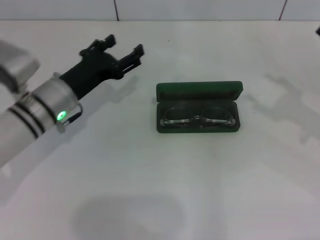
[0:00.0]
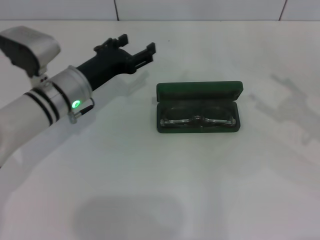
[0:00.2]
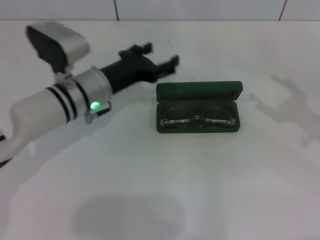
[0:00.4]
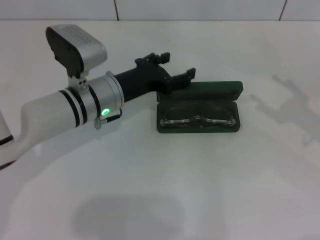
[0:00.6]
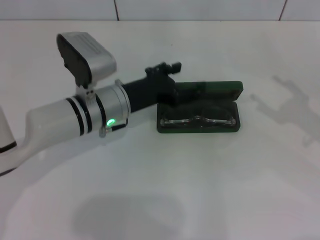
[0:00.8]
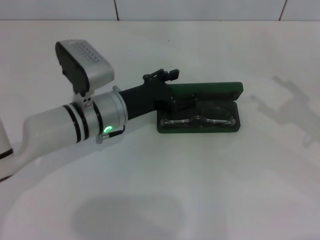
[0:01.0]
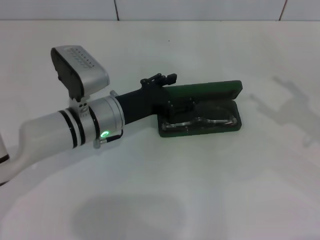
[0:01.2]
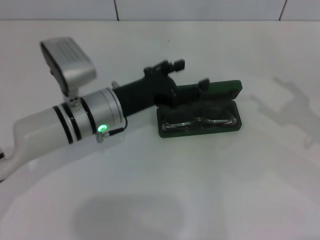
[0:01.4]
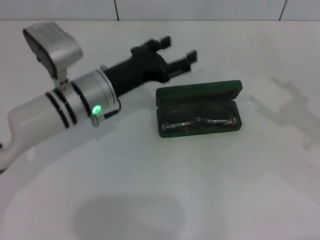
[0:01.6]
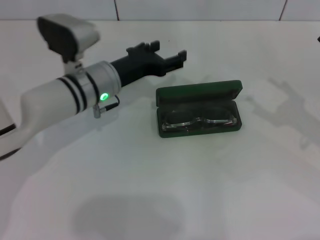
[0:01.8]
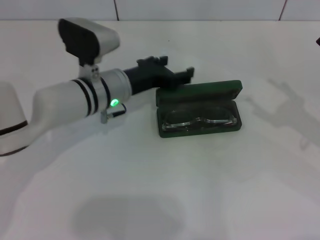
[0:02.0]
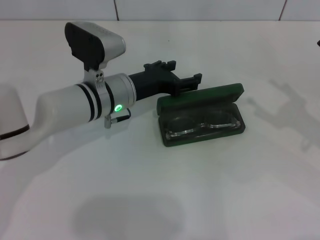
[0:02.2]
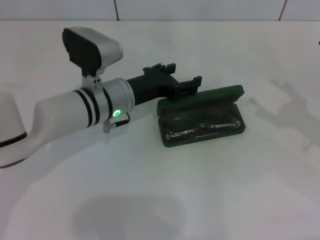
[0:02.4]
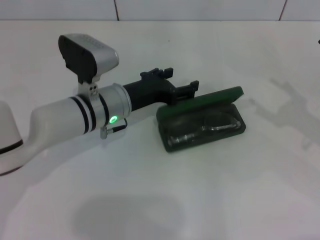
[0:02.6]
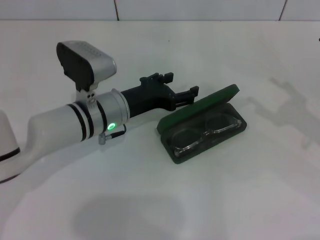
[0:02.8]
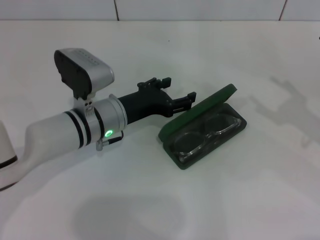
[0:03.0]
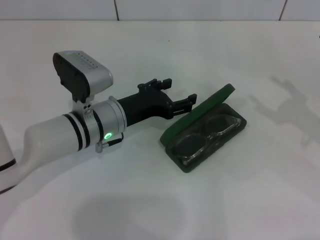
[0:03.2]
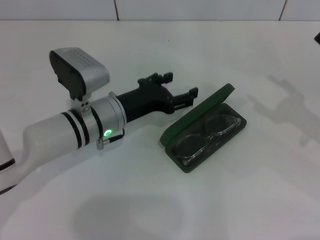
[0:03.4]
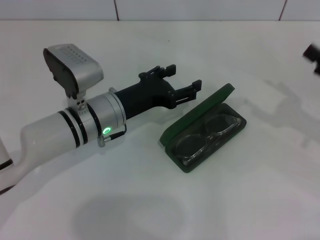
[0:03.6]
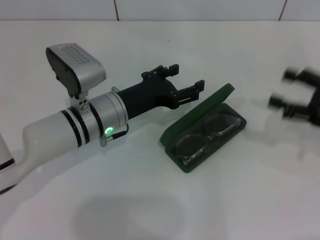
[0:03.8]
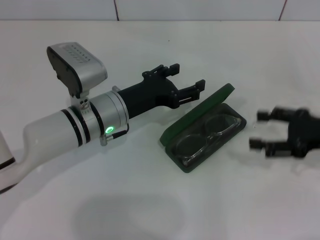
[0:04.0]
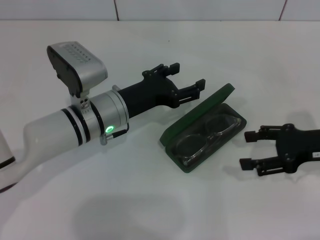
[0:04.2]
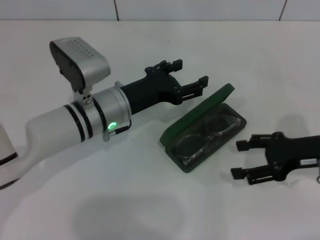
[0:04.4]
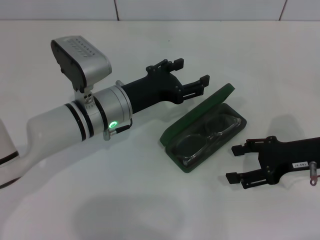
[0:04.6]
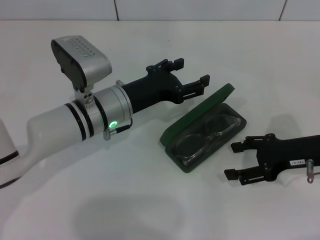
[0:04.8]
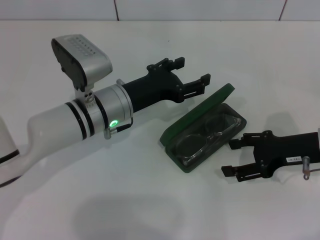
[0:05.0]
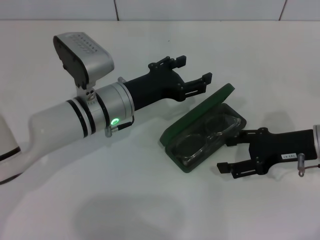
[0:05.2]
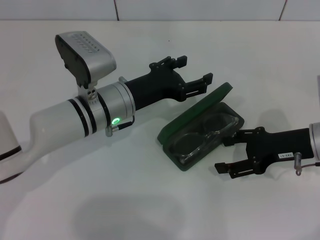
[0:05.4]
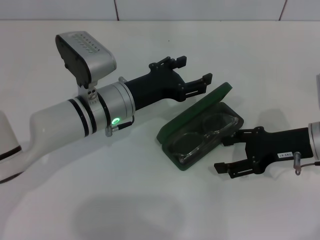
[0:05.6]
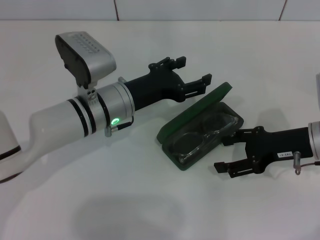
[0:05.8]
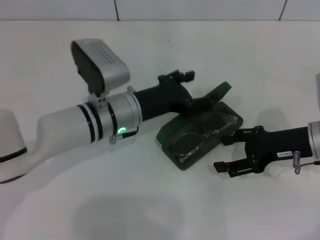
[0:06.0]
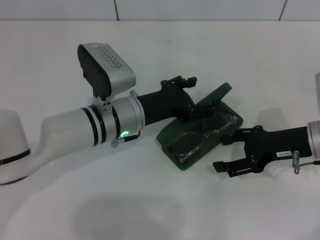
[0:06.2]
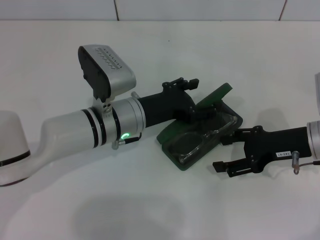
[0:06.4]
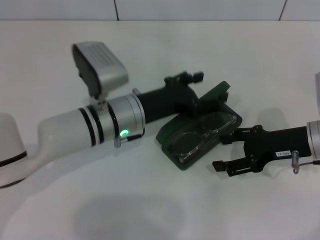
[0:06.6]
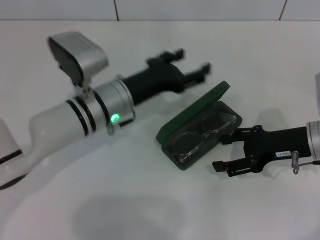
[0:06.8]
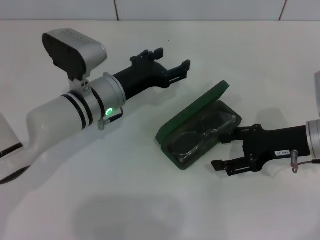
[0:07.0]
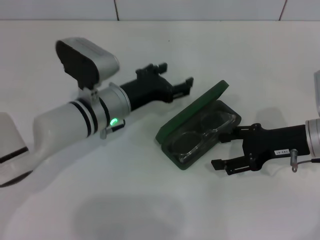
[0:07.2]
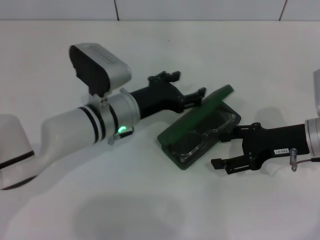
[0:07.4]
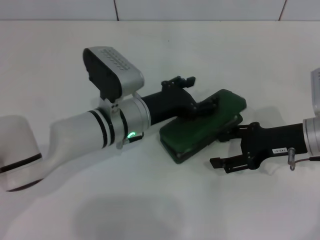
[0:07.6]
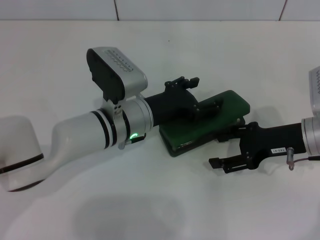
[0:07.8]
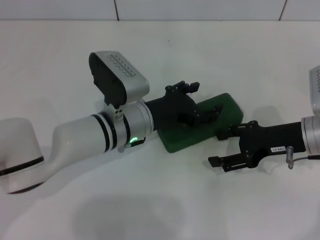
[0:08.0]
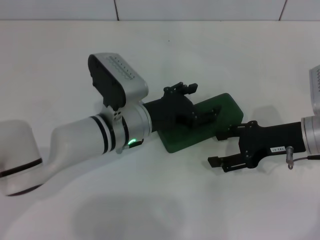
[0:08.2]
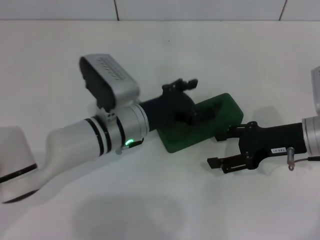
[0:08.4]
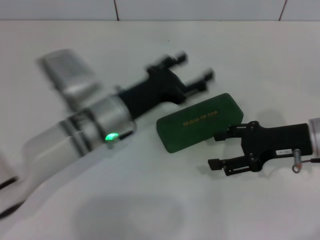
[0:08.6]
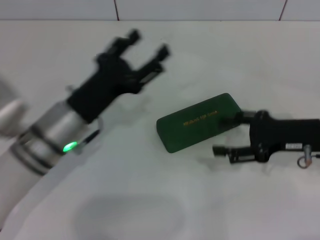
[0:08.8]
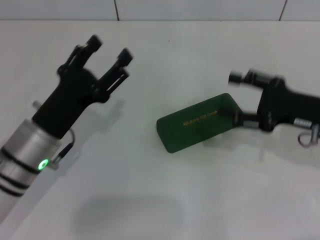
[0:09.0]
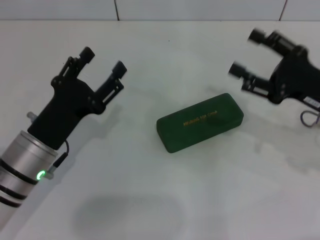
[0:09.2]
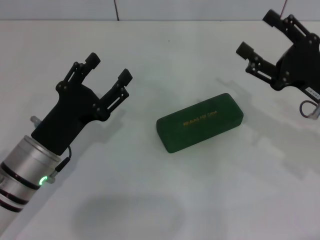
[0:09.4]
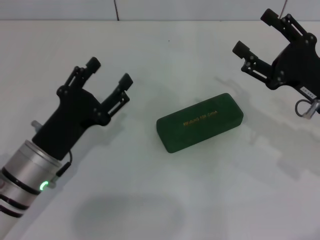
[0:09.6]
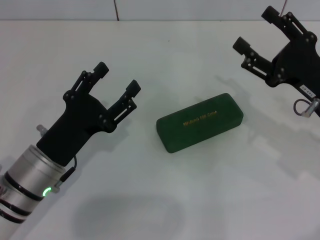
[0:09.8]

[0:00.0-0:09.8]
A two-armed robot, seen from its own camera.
Step, 0:00.0 to 0:08.2: Close the glasses case with your left hand.
0:00.0 to 0:01.4: The left gripper shifts about 5 cm to the right.
0:01.4 to 0:02.8: The grippers move only a little.
0:02.8 to 0:04.2: The right gripper changes place by approximately 5 cm.
0:04.2 to 0:05.6: The right gripper ends up roughly 5 cm from where it was.
0:05.6 to 0:08.4: The grippers make only small movements.
0:08.4 to 0:09.8: The left gripper travels to the left and backward by approximately 15 cm.
